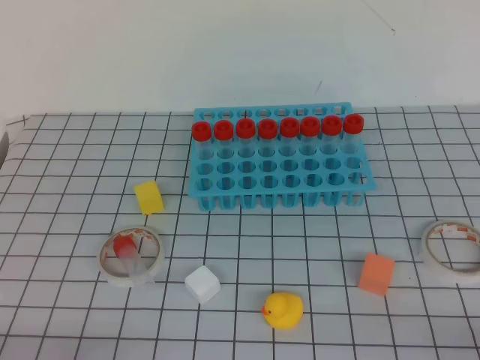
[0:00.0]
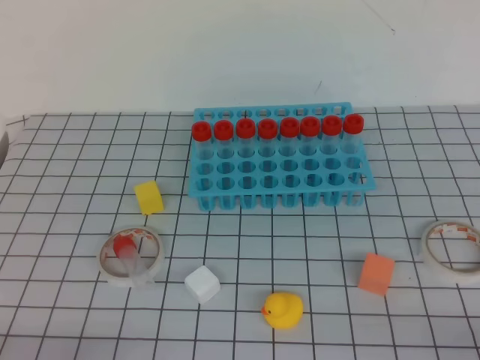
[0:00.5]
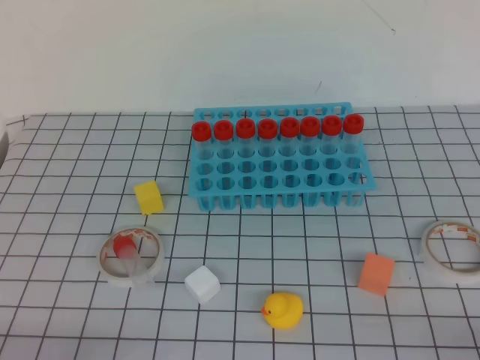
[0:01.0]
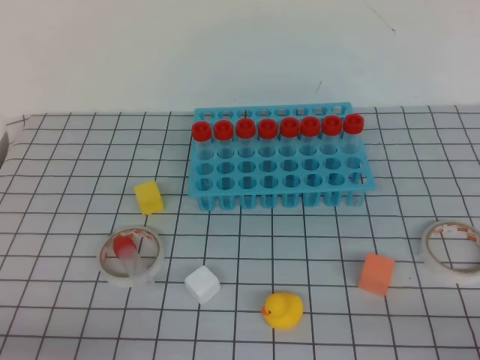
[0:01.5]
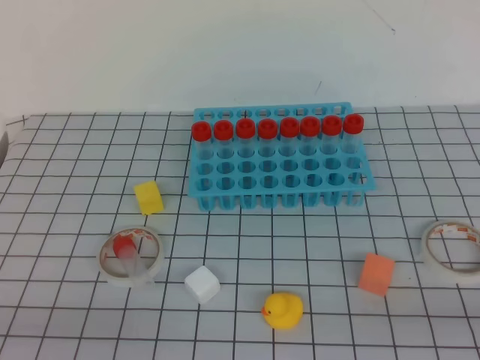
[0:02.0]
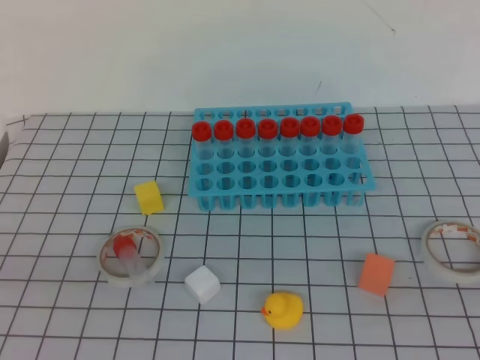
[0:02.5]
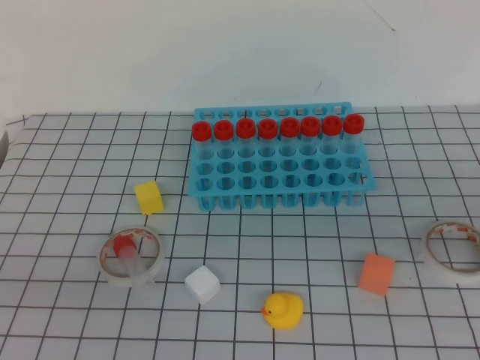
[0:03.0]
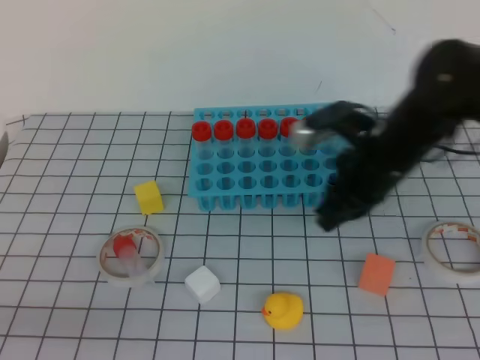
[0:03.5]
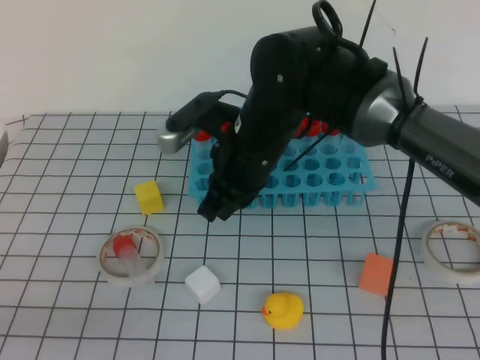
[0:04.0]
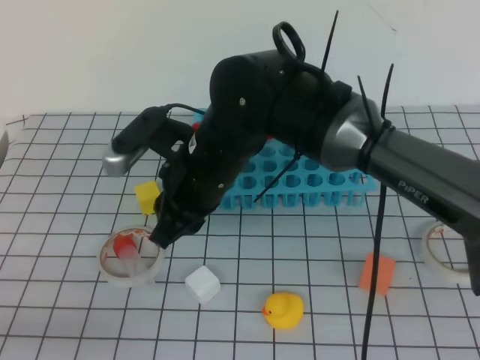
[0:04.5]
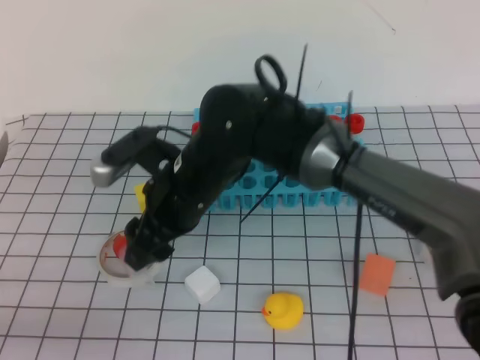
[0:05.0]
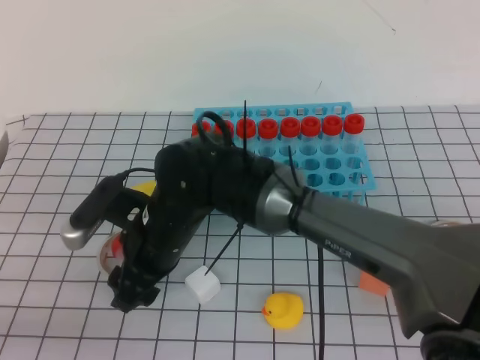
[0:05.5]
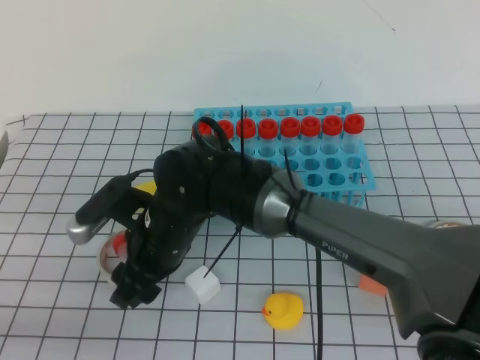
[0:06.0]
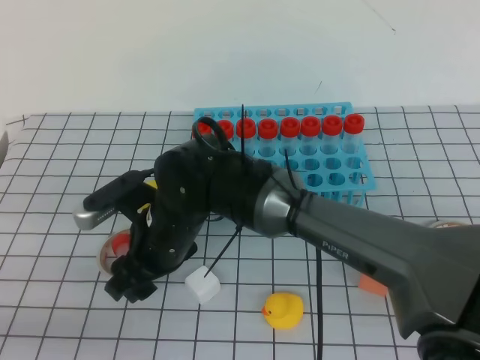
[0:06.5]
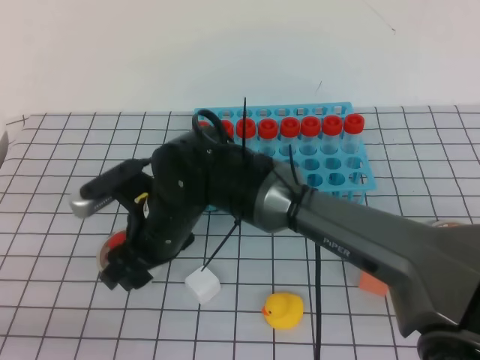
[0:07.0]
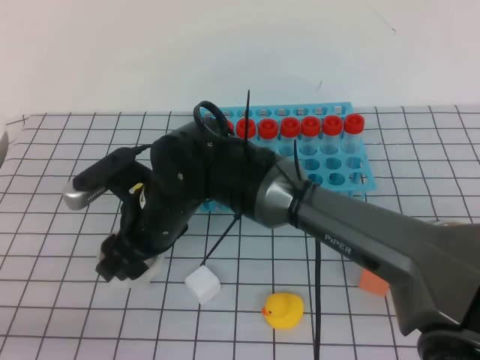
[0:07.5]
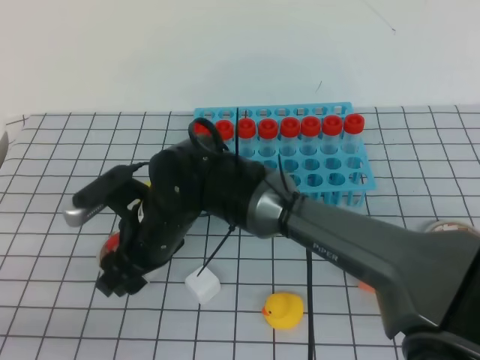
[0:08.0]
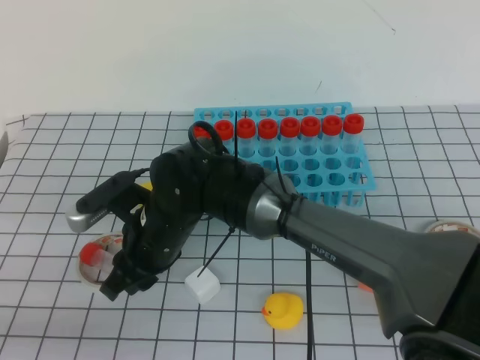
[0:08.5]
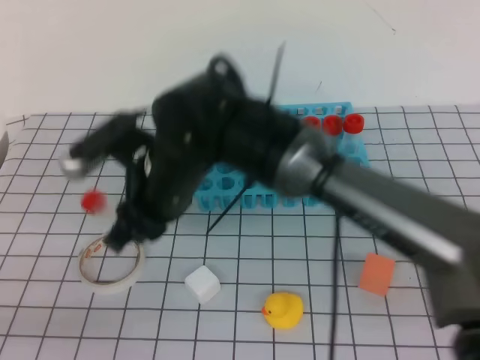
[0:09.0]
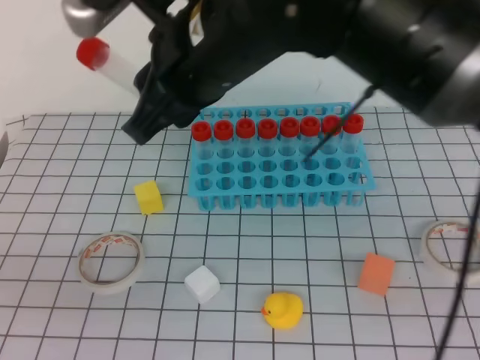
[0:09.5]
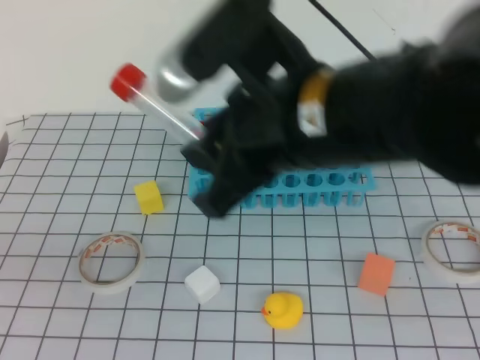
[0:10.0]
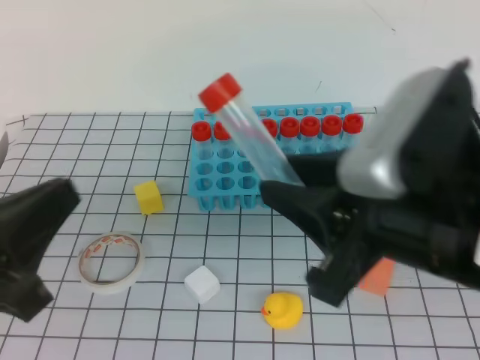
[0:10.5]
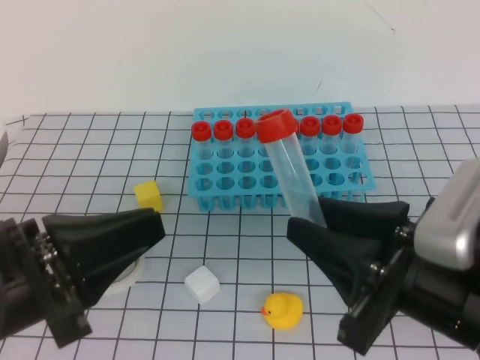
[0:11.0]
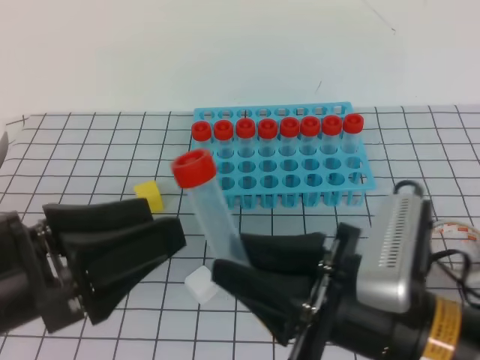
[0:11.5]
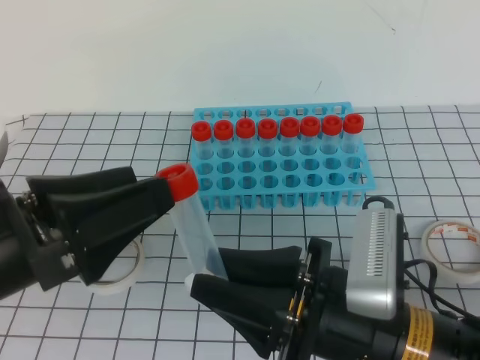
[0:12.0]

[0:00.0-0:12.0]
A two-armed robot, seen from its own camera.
2.0 to 4.0 s: The right gripper goes some 40 cm forward and to the left.
4.0 to 6.0 s: The right gripper goes approximately 15 cm to the left, downward and backward, and opens up.
6.0 to 8.0 s: The grippers move only a little.
8.0 to 10.0 s: The right gripper moves upward, to the right and backward, about 25 cm, and closes.
10.0 to 12.0 s: The left gripper shifts approximately 10 cm forward and to the right, and opens. The right gripper travels downward and backward by roughly 15 cm.

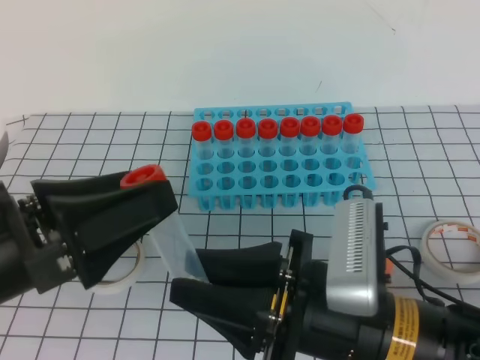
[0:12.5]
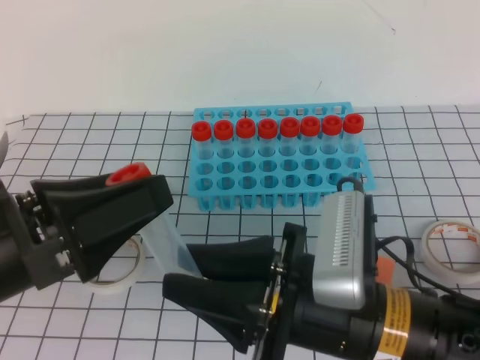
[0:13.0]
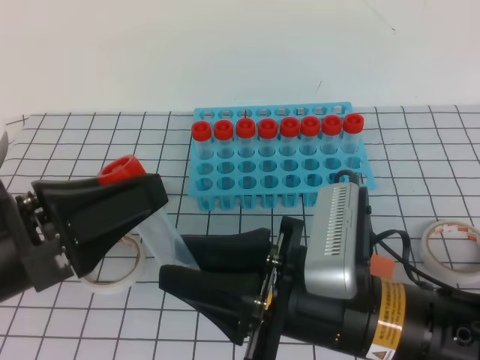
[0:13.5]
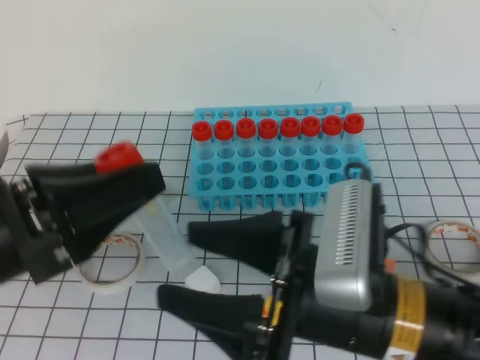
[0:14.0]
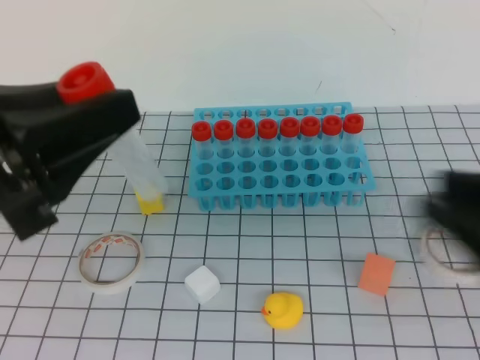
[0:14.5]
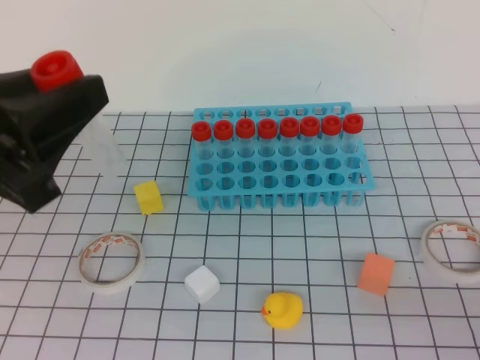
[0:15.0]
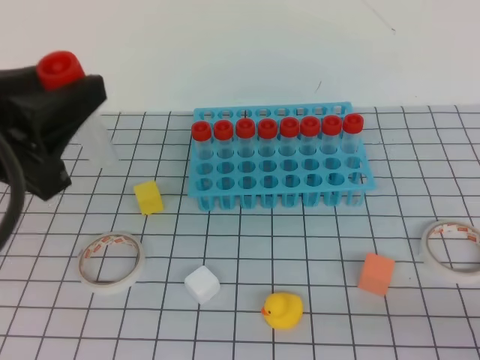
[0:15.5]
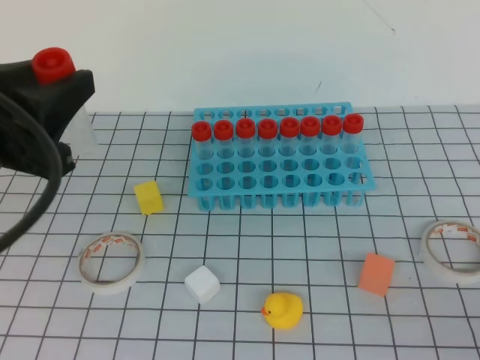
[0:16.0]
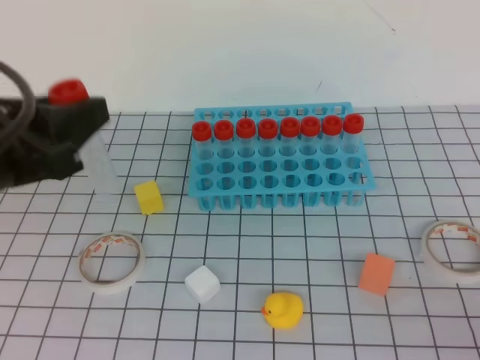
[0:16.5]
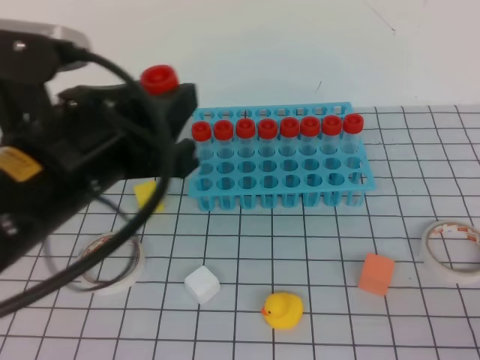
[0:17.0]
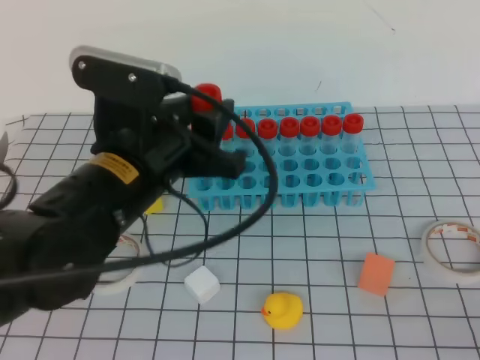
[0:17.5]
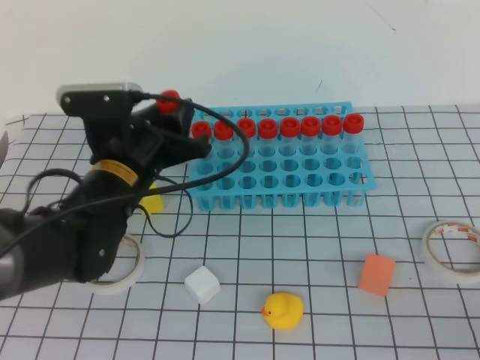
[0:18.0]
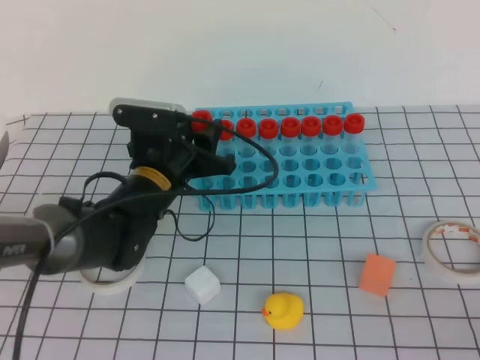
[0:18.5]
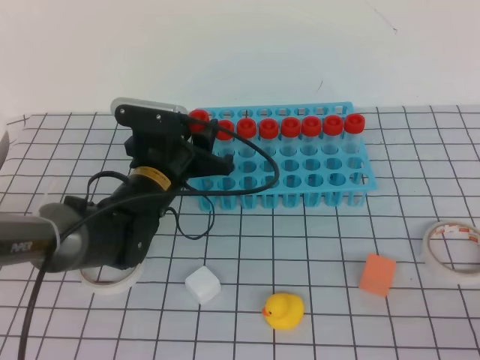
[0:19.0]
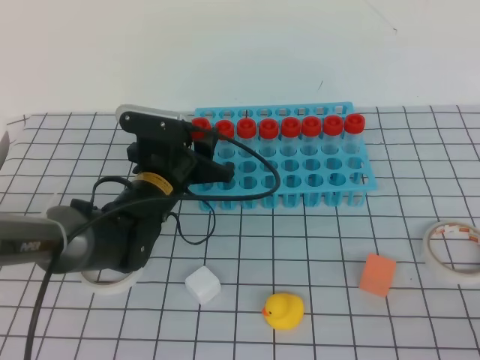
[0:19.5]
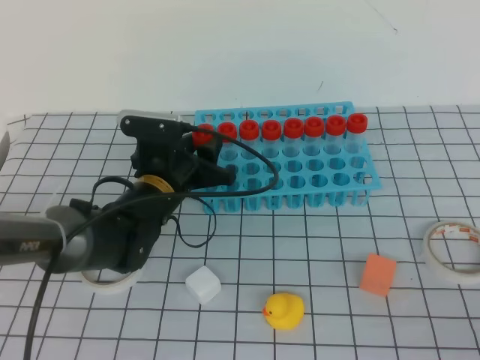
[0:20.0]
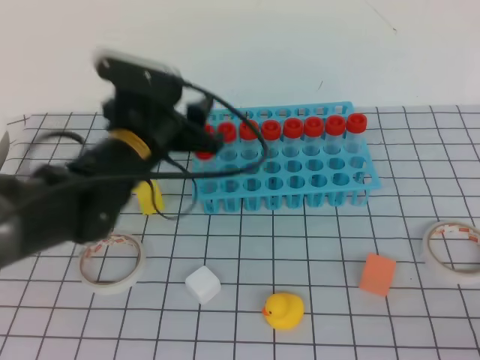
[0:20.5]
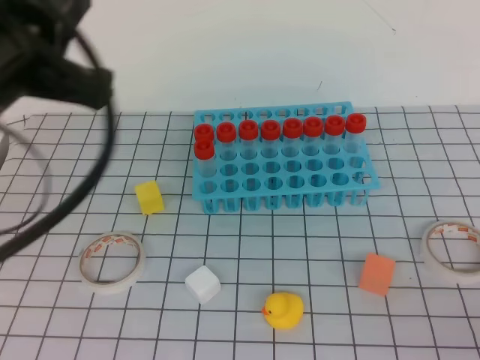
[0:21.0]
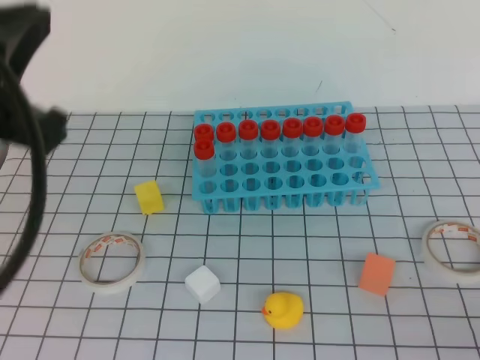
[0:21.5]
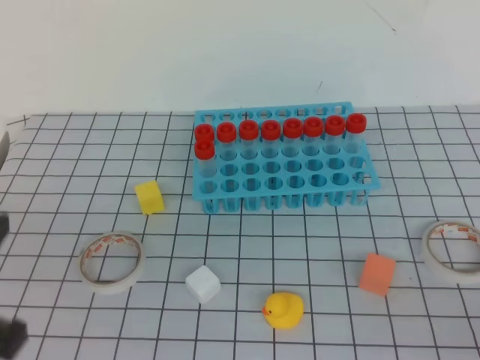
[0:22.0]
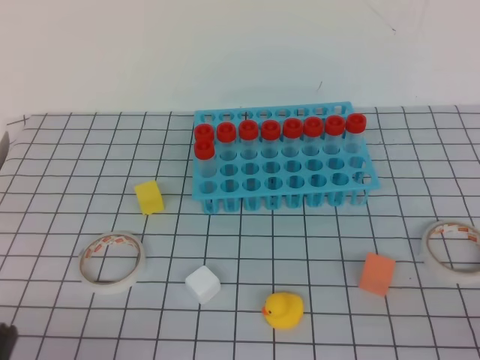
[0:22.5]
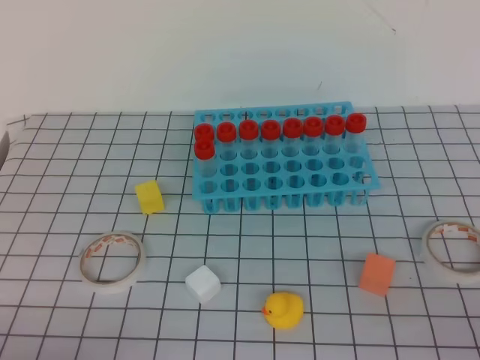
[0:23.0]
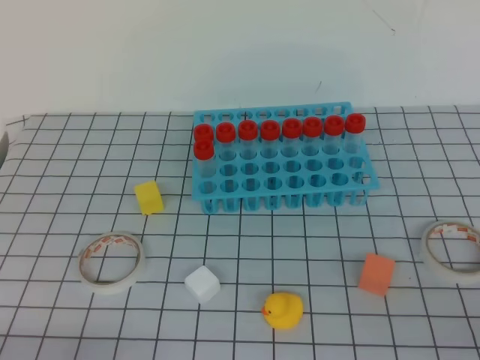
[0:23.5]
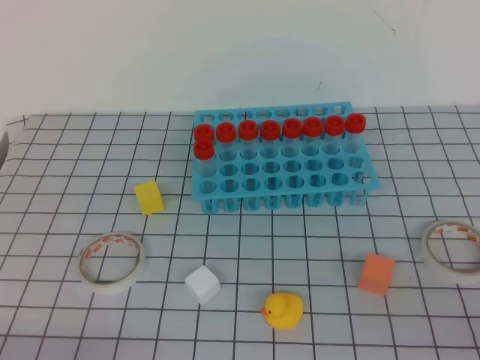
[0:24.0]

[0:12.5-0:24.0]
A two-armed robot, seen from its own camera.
12.5 to 14.5 s: The right gripper goes some 15 cm to the right and upward, and opens and closes again; the left gripper heads upward, covering about 5 cm, and closes.
14.5 to 16.5 s: The right gripper shifts about 10 cm to the right and backward, and closes up. The left gripper shifts by approximately 5 cm.
16.5 to 18.5 s: The left gripper goes approximately 25 cm forward, downward and to the right.
18.5 to 20.0 s: The grippers make only small movements.
20.0 to 22.0 s: The left gripper goes some 35 cm backward, upward and to the left, and closes.
22.0 to 24.0 s: The left gripper shifts some 15 cm downward.

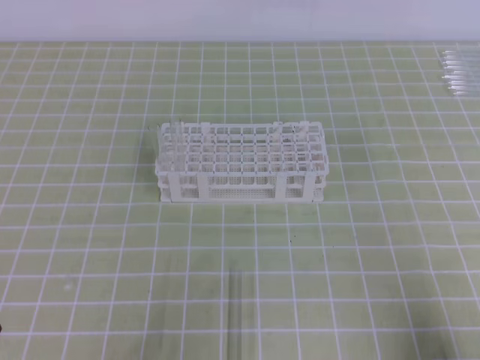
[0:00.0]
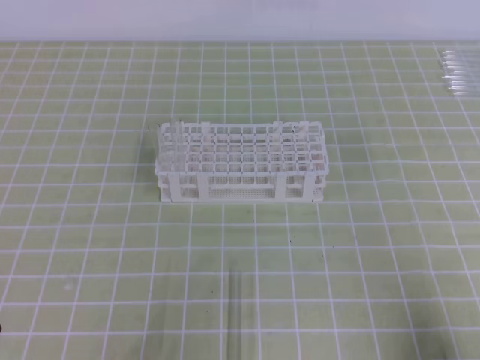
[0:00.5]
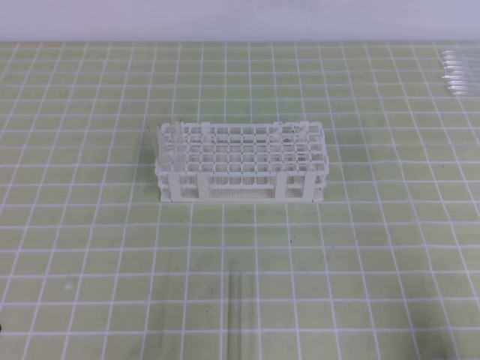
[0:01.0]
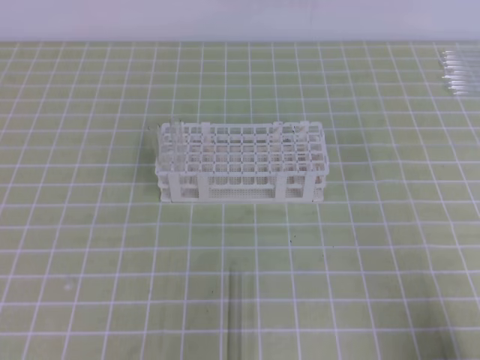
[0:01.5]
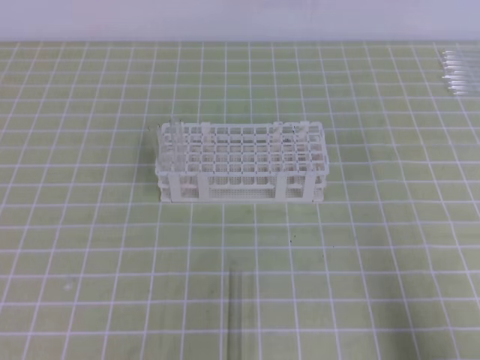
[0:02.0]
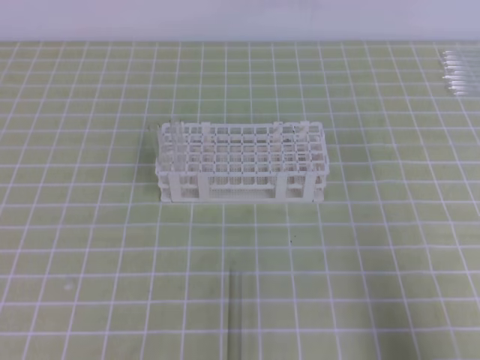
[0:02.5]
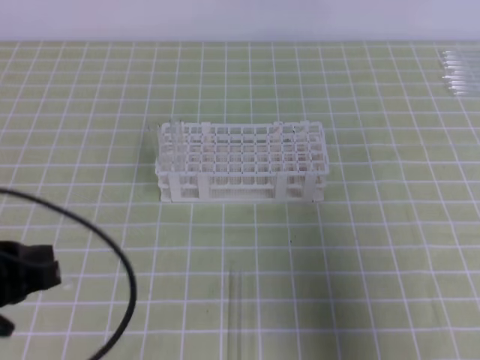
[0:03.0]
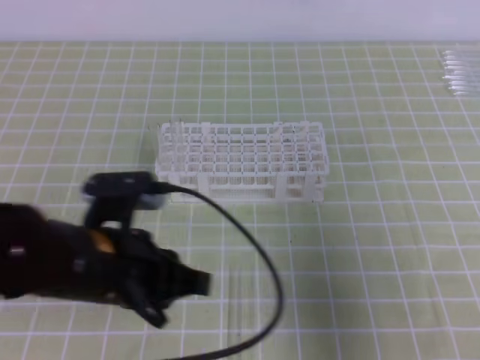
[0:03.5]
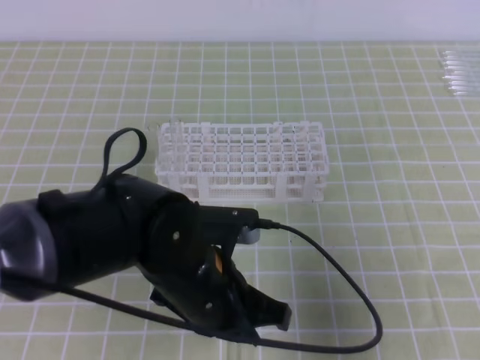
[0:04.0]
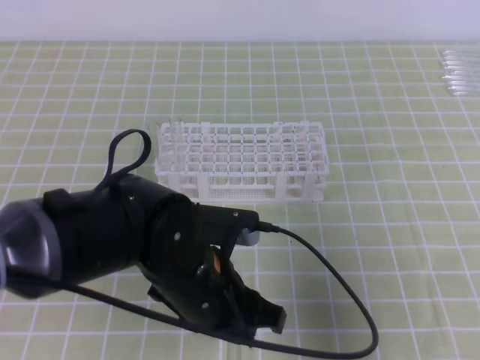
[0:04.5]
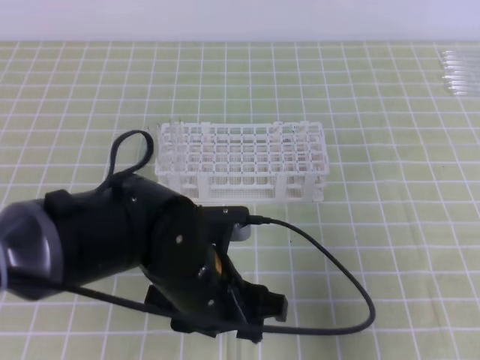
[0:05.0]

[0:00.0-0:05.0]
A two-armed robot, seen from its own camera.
Step, 0.0 to 3.5 s: Pick up the test tube with the left gripper.
2.5 to 5.0 s: The right gripper travels forward and upward by roughly 10 cm. Meanwhile the left gripper goes some 25 cm to the right and forward, and opens.
